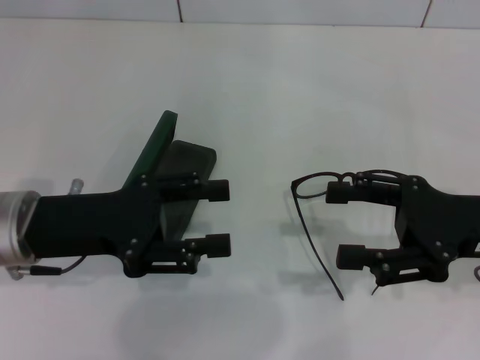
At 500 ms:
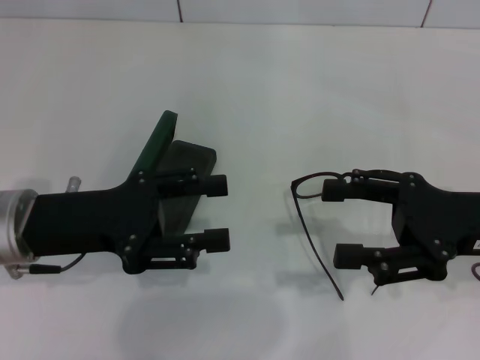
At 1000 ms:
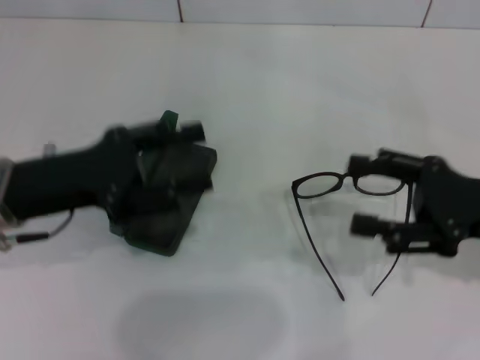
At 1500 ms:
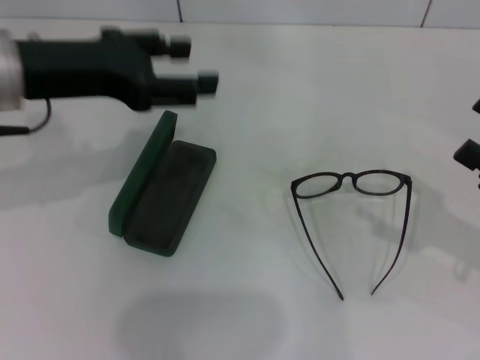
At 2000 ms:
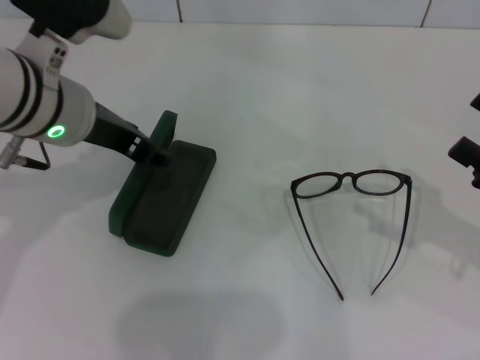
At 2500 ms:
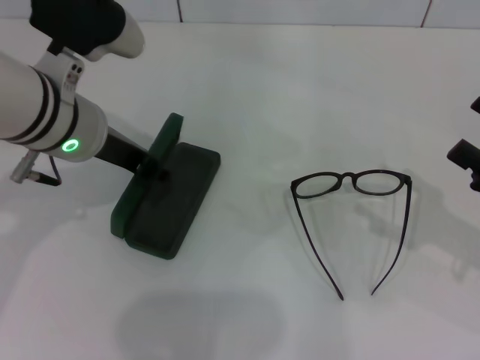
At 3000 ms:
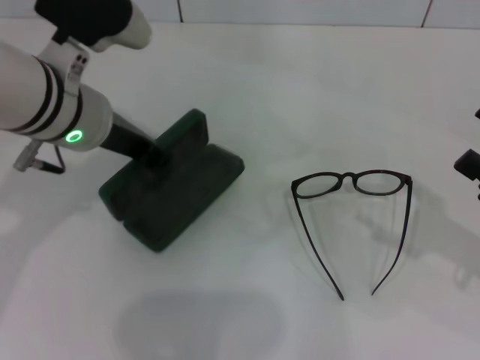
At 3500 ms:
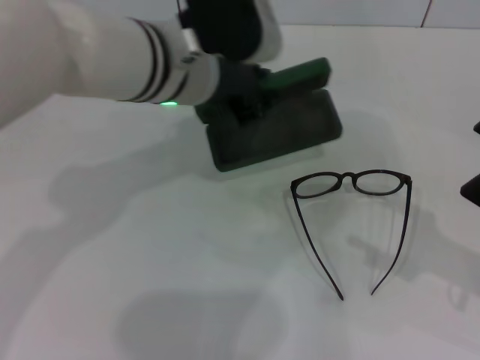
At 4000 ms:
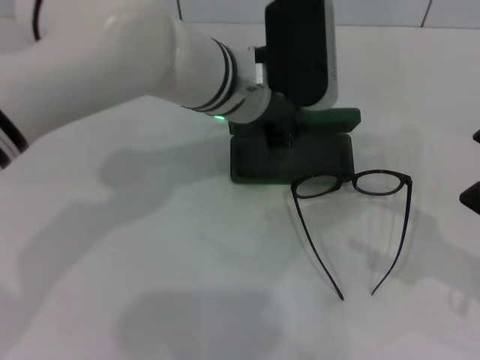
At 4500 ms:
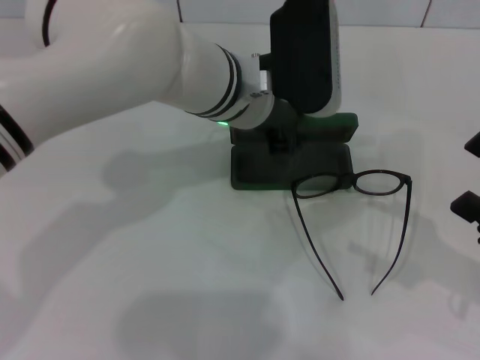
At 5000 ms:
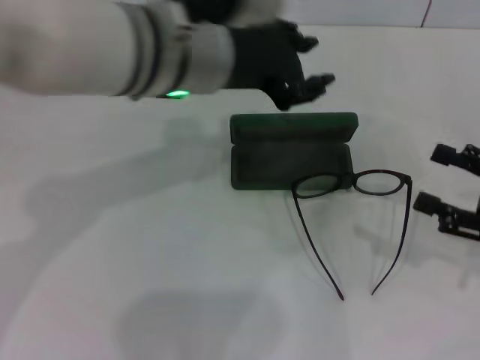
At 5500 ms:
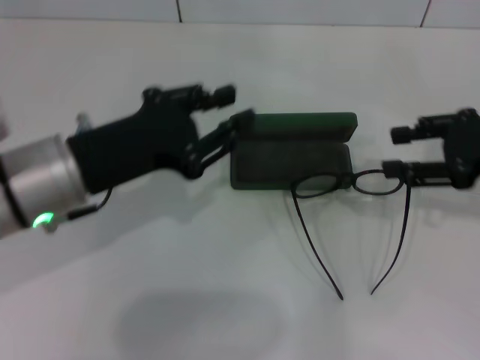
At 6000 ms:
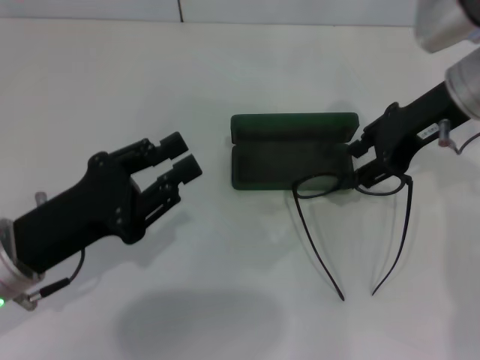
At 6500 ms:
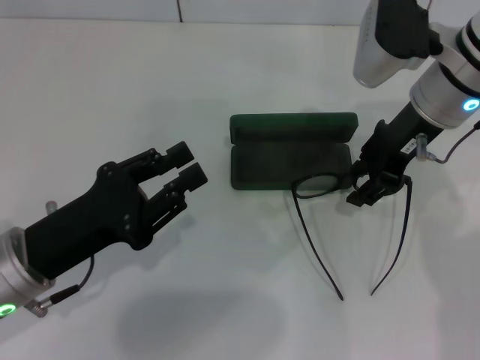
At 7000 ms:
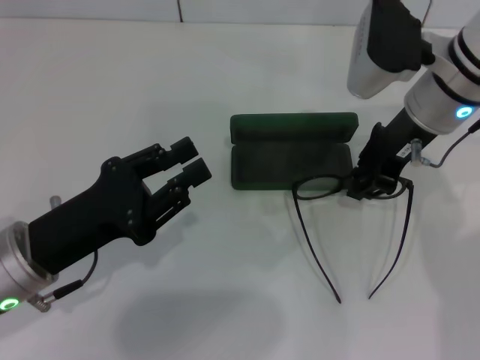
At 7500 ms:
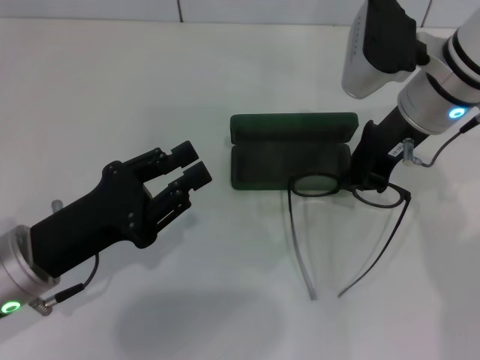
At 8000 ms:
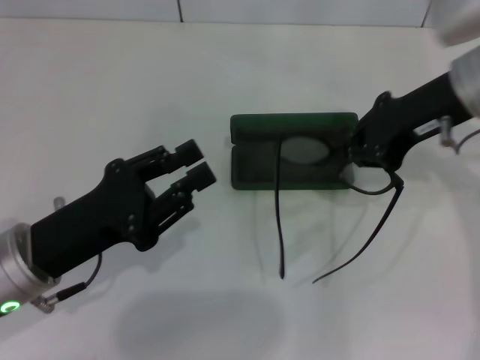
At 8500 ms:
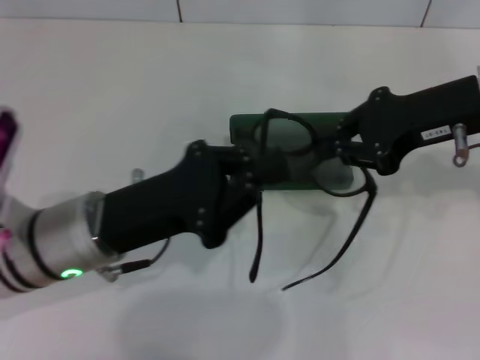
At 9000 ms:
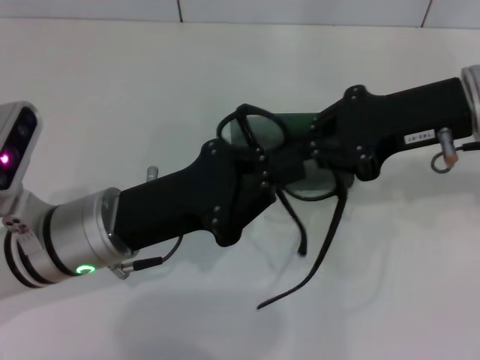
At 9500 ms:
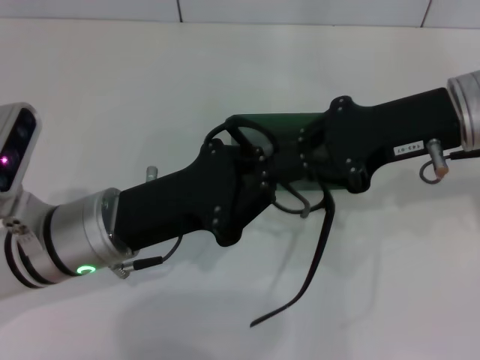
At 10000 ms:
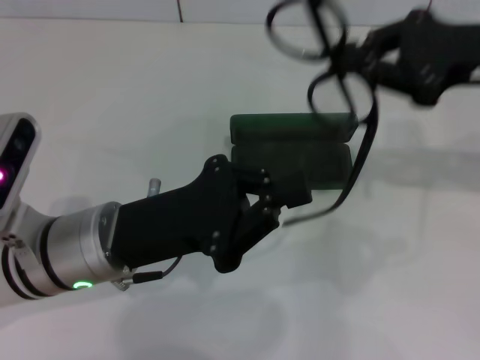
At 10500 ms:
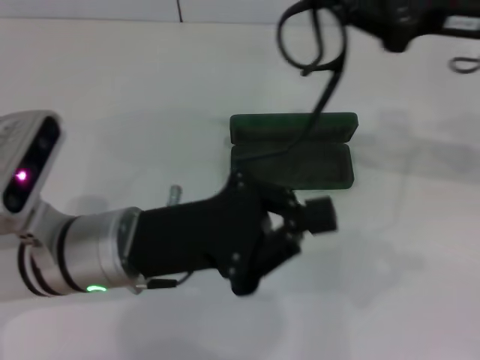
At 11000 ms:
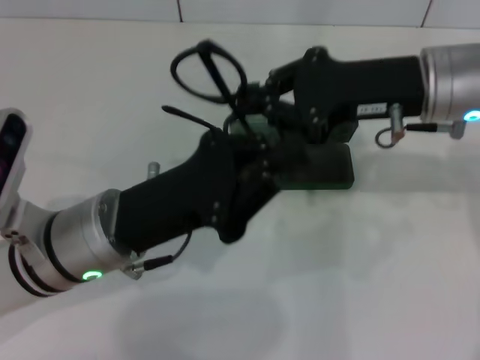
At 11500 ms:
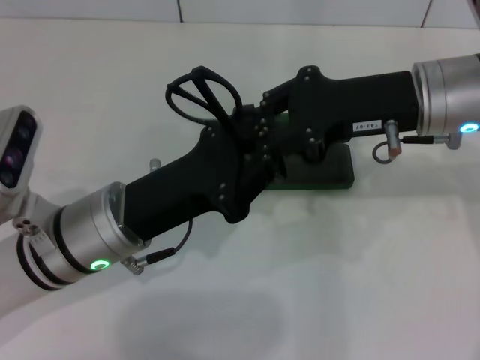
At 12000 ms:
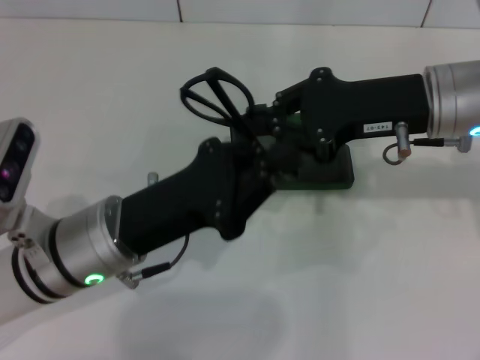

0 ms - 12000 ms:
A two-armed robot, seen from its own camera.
Step, 0 ms - 2500 ms: Grab the glasses case with your left hand.
Step, 3000 ms - 4000 ms: Place the glasses case in the center of the table with your left hand.
Step, 4500 ms - 7000 ms: Grab the eyeglass frame with your right hand.
Step, 8000 ms - 11500 ms: Fold the frame with your left hand.
0 ms - 2000 ms: The left gripper heads upward, forward and to the right, covering some 10 cm; the right gripper shifts some 10 cm to the right.
2000 ms - 4000 ms: The left gripper moves to the right, roughly 15 cm, and closes.
4000 ms - 6000 ms: The left gripper travels to the left and backward by approximately 25 cm, while the right gripper goes about 25 cm forward, to the left and upward, and closes up.
6000 ms - 8000 ms: The right gripper closes.
8000 ms - 10000 ms: The left gripper goes about 5 cm to the right, and closes up; the right gripper moves roughly 5 cm.
10000 ms - 12000 ms: The right gripper shifts approximately 5 cm to the left.

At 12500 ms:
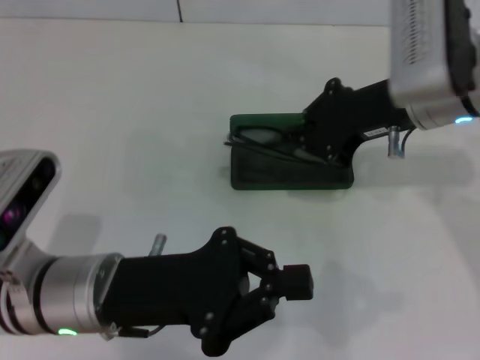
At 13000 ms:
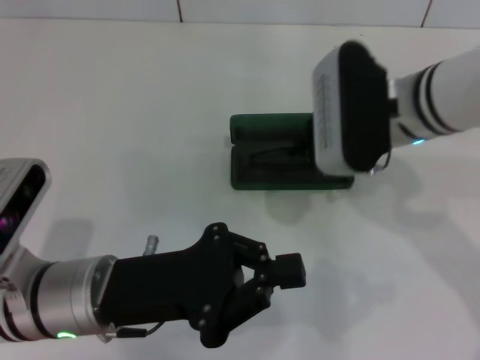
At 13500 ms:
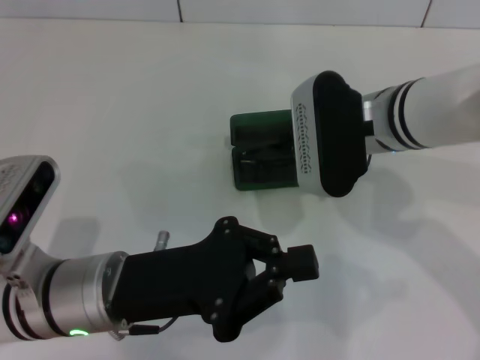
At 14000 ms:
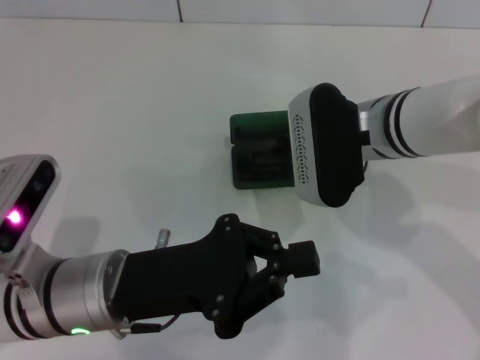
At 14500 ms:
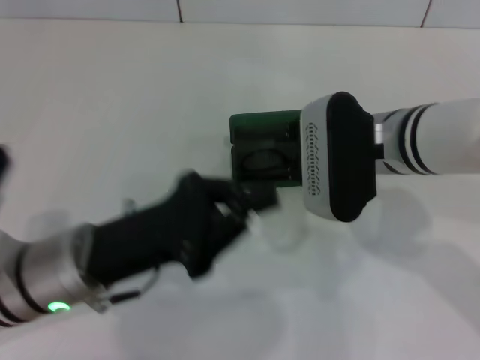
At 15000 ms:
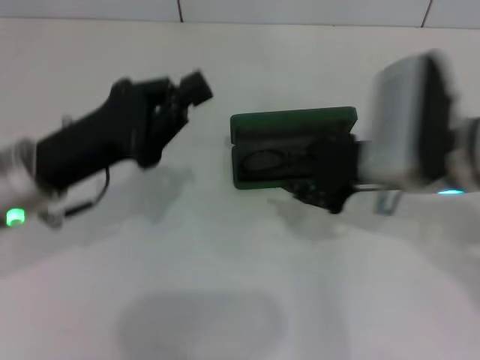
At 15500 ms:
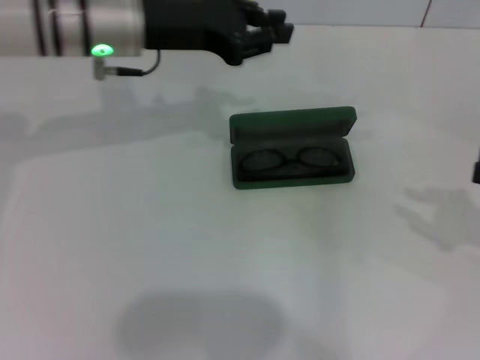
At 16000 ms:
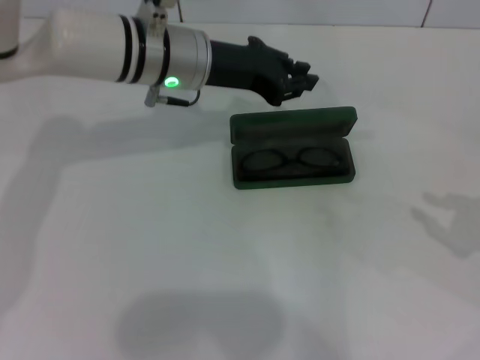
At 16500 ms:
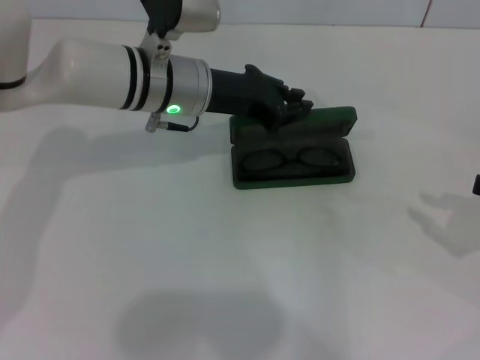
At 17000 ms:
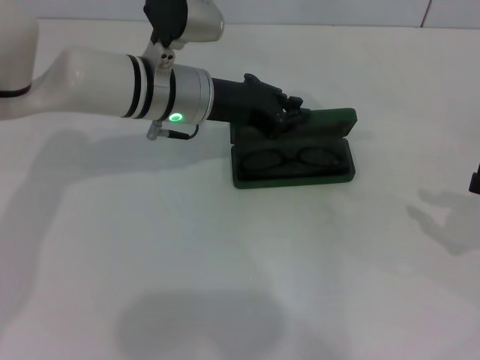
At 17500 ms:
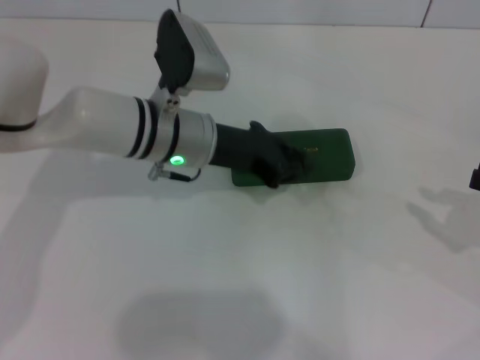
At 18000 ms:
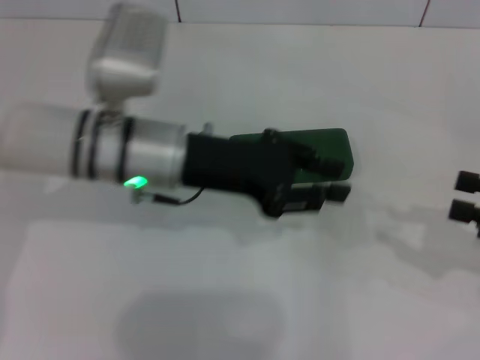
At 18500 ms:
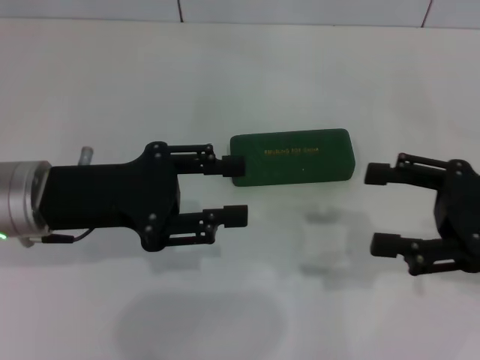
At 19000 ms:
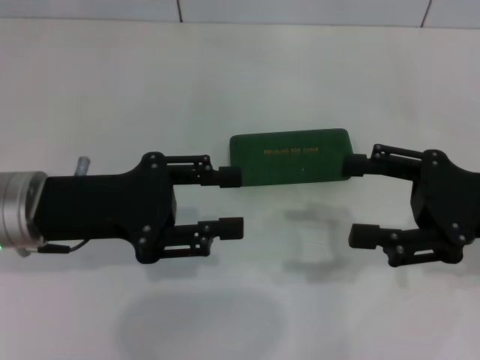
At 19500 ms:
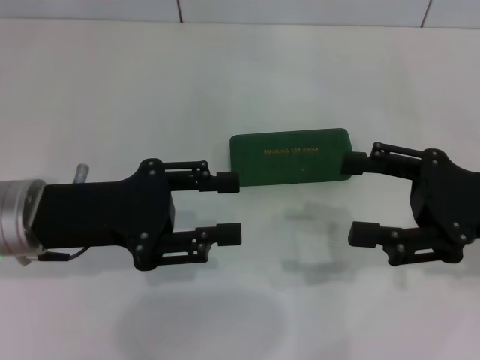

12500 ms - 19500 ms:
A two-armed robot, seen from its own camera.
Step, 12500 ms - 14000 ms: Put the glasses into the case with your right hand.
Step, 14500 ms - 17000 ms: Close the glasses case with your left hand.
12500 ms - 14500 ms: The right gripper heads downward, covering approximately 5 cm.
14500 ms - 16000 ms: The left gripper shifts some 20 cm forward; the right gripper heads to the right, covering about 25 cm.
16000 ms - 17500 ms: The left gripper heads downward, covering about 5 cm.
17500 ms - 19500 ms: The right gripper goes roughly 10 cm to the left, and opens. The left gripper travels to the left and backward by approximately 15 cm, and opens up.

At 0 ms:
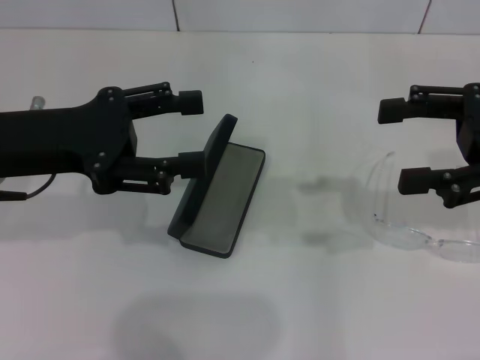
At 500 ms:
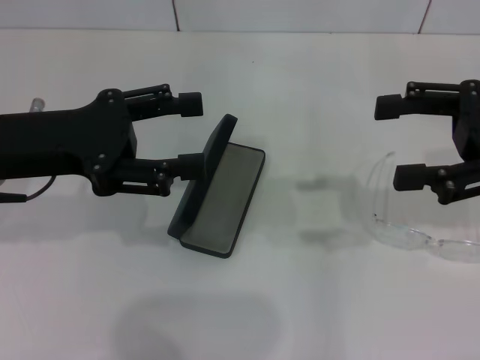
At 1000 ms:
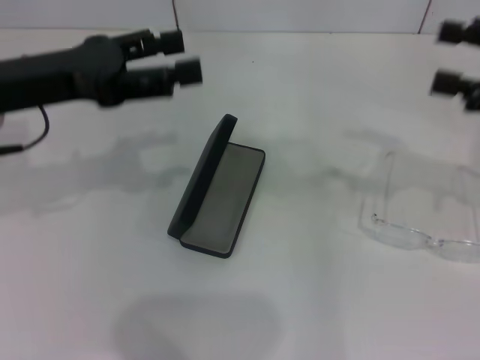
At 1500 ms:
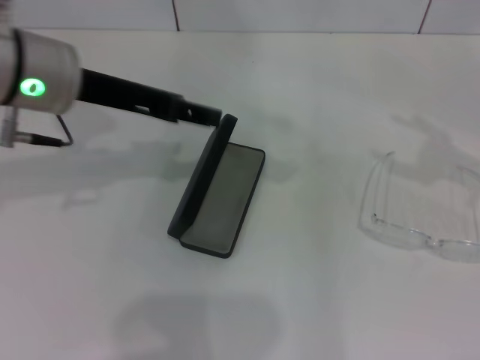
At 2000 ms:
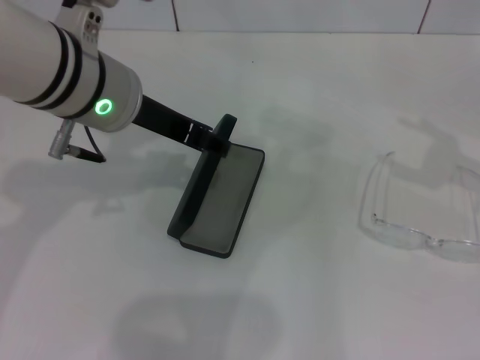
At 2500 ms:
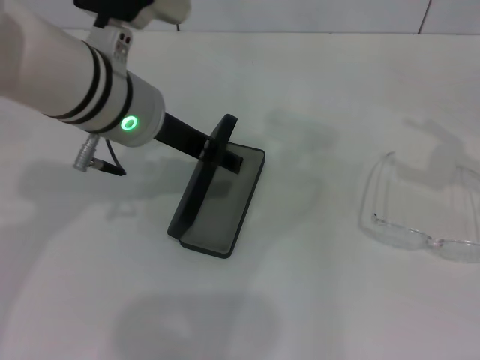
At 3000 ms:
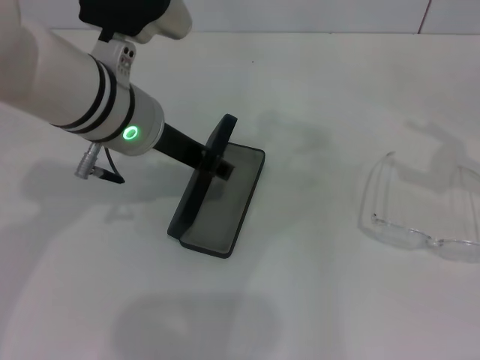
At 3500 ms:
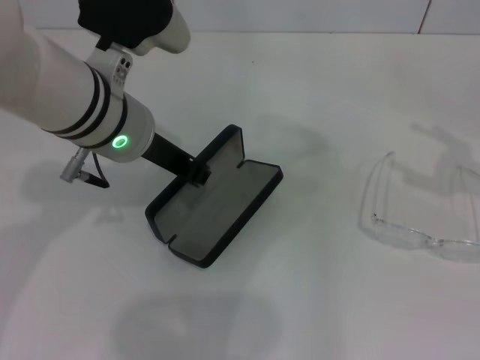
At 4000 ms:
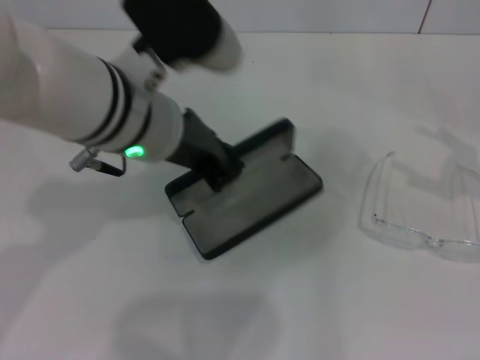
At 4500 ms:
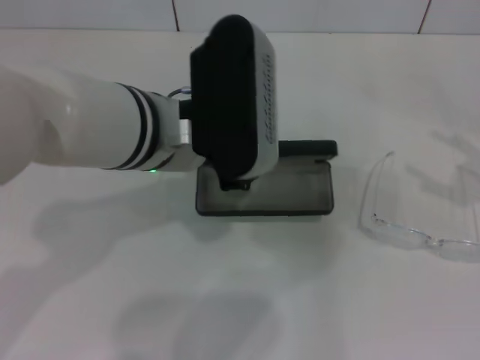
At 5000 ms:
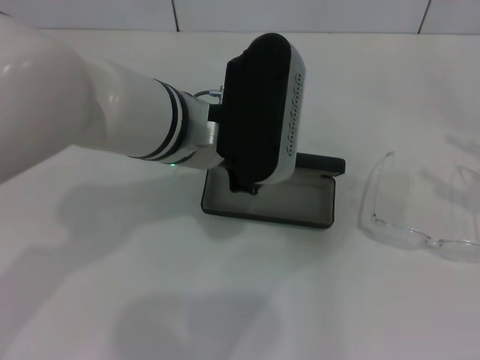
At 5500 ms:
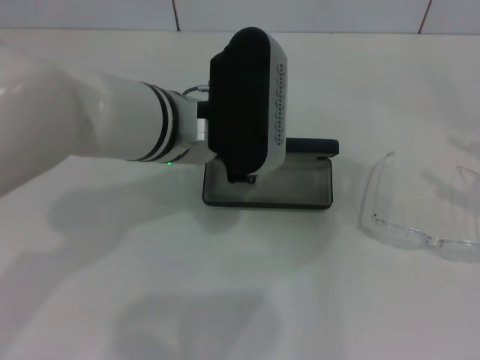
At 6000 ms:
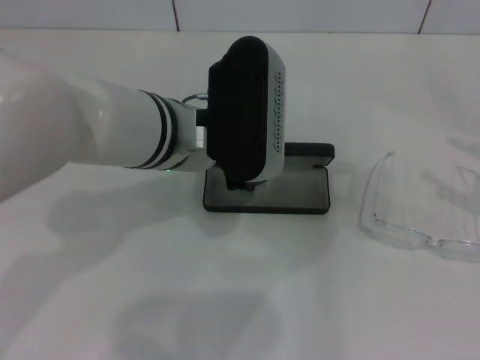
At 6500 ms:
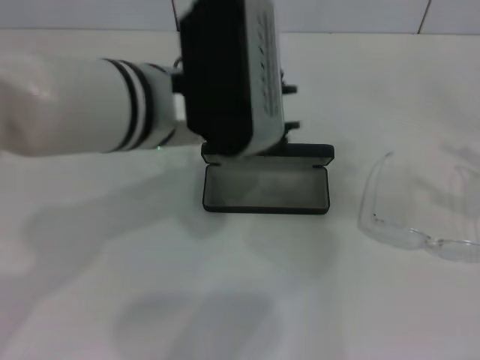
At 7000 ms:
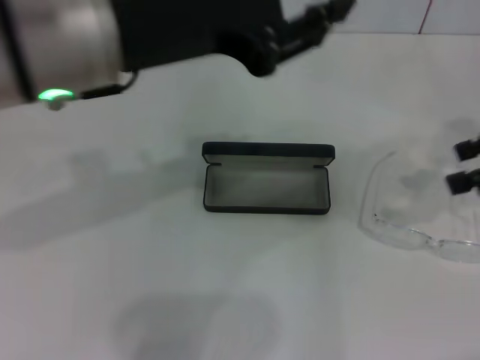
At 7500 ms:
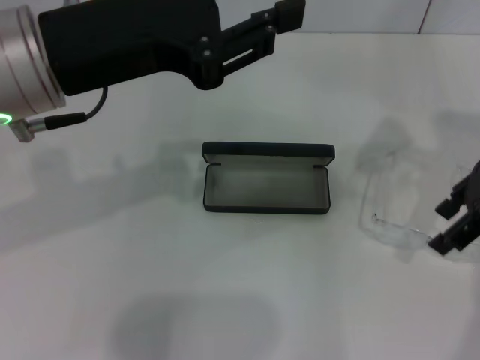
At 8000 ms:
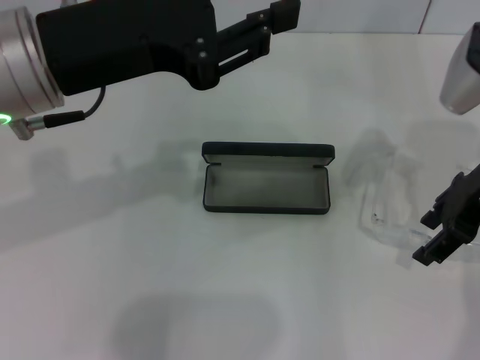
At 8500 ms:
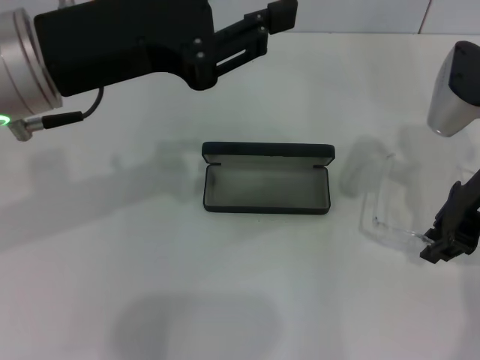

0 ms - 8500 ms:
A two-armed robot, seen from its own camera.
Step, 0 ms - 2500 ms: Grab the glasses case with your left hand.
Step, 3000 ms - 5500 ms: Place the glasses case in the center of the table with your left hand.
Step, 6000 ms - 8000 ms: Grab the eyeglass frame with your right hand.
0 ms - 2000 ms: The grippers both shift to the right by roughly 10 cm.
2000 ms - 4000 ms: The left gripper closes its fingers.
6500 ms - 8500 ms: The left gripper travels to the left by some 10 cm. The right gripper travels to the left and forward by some 20 cm, and closes.
